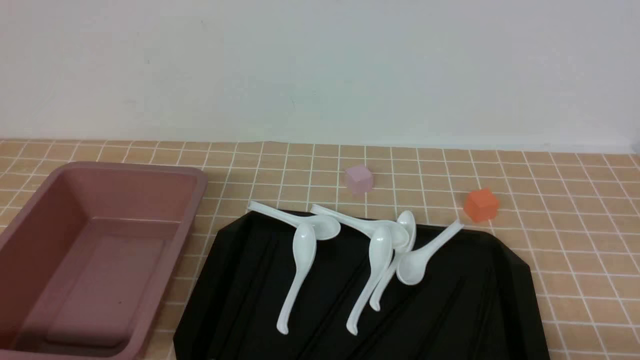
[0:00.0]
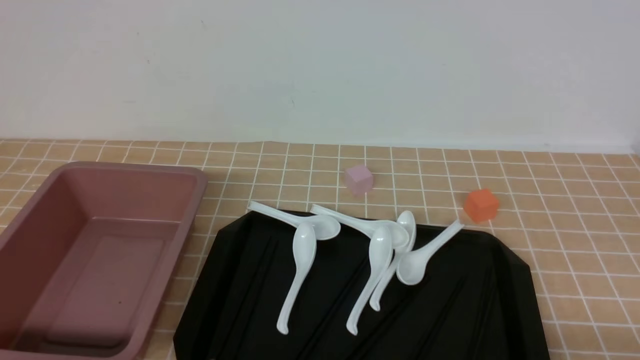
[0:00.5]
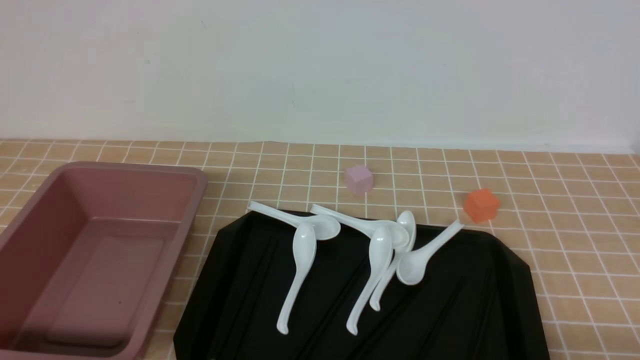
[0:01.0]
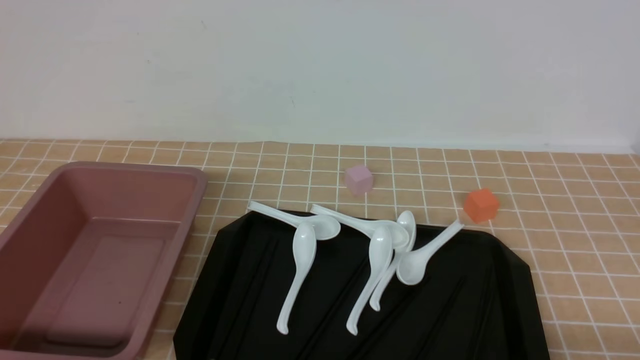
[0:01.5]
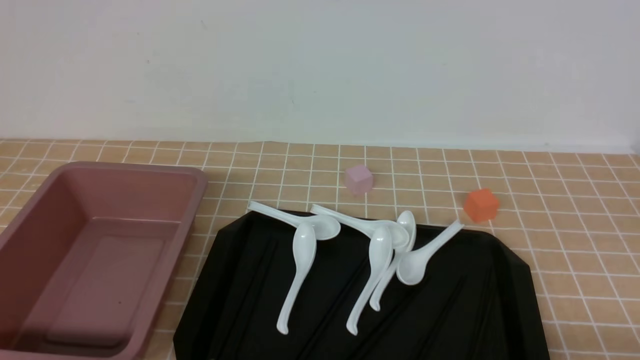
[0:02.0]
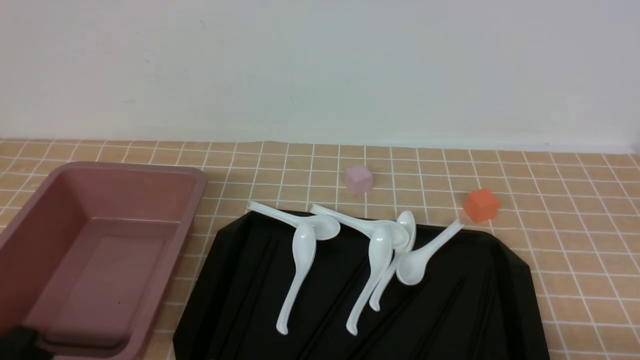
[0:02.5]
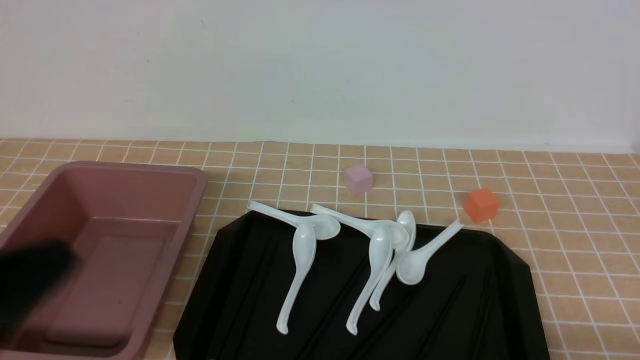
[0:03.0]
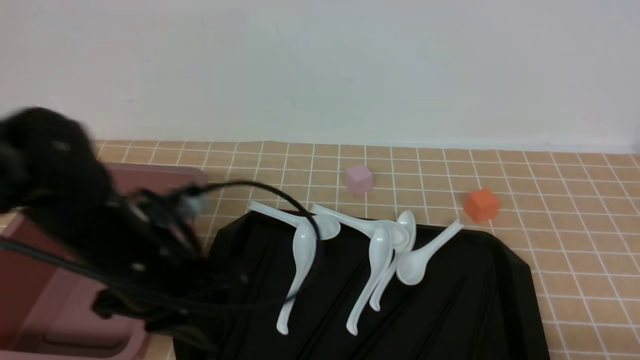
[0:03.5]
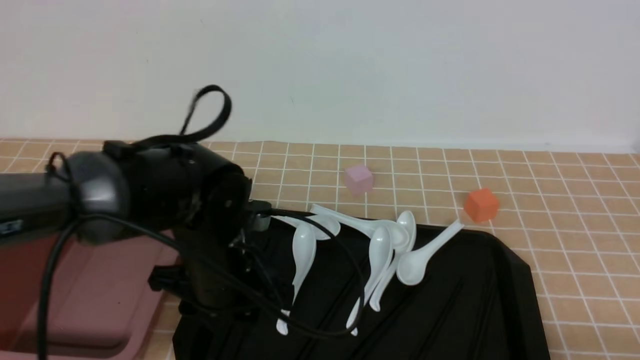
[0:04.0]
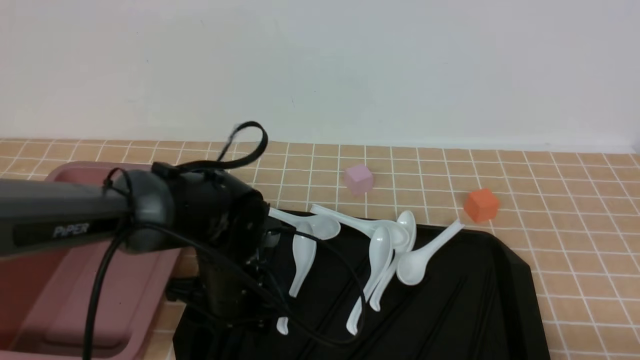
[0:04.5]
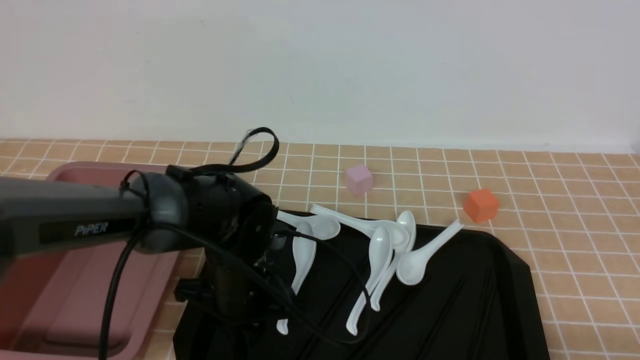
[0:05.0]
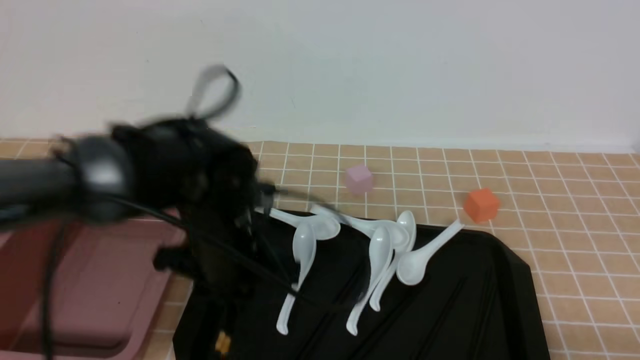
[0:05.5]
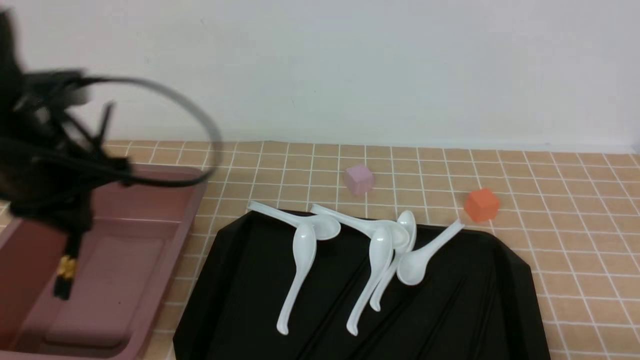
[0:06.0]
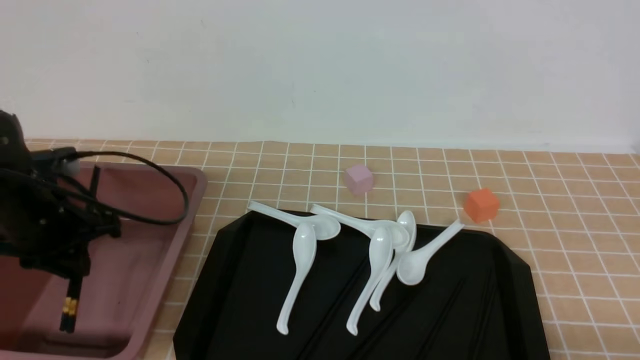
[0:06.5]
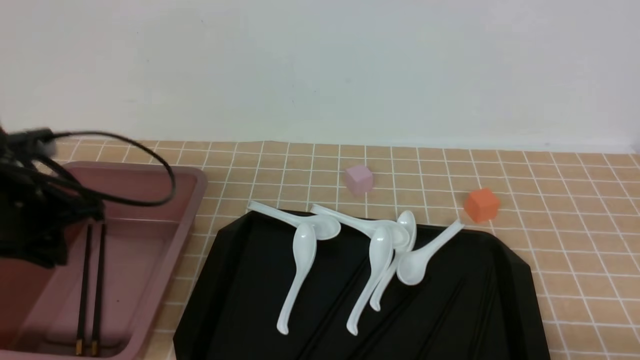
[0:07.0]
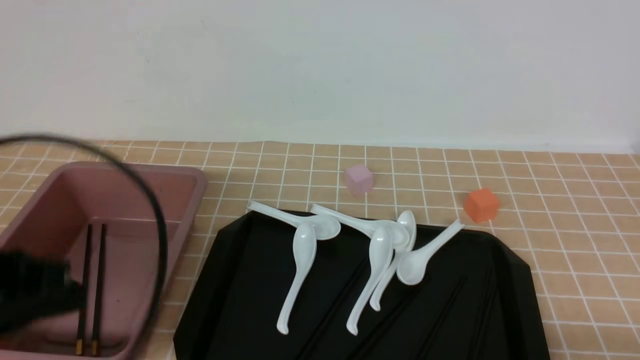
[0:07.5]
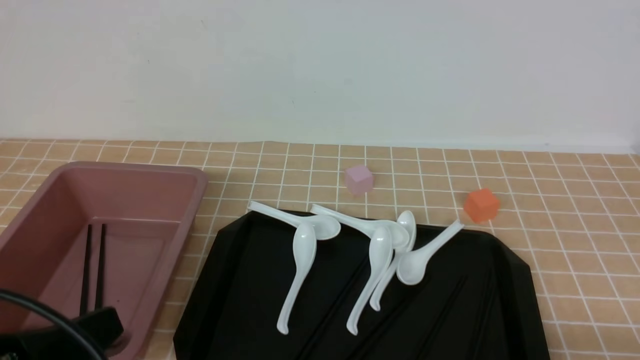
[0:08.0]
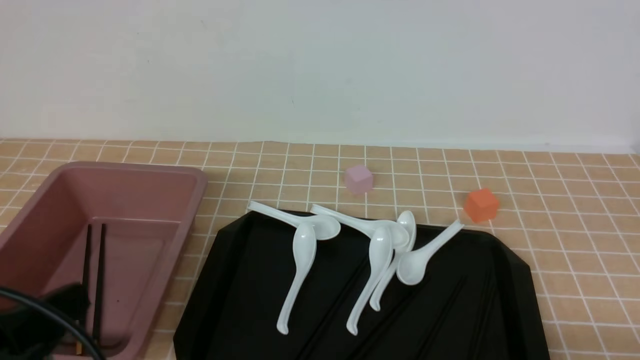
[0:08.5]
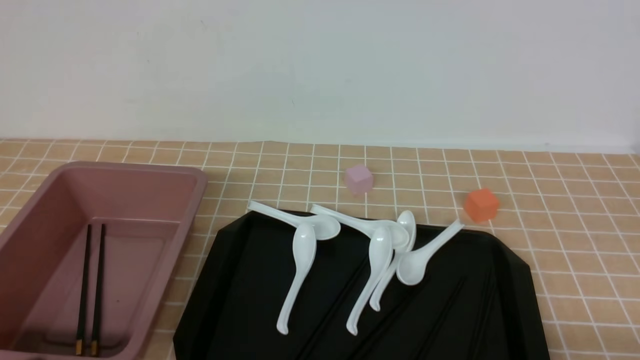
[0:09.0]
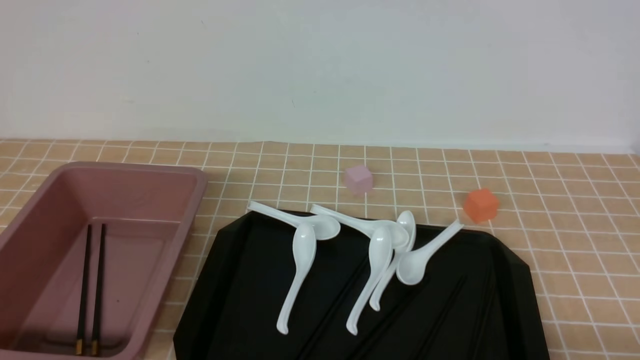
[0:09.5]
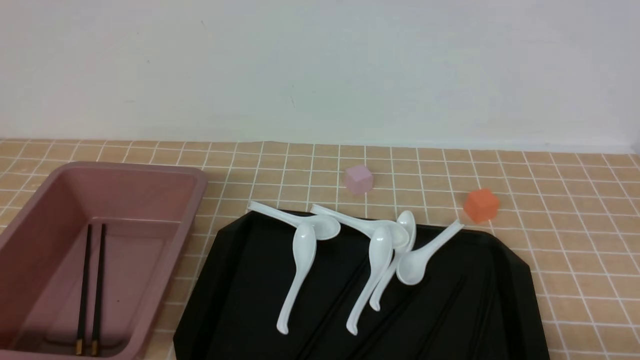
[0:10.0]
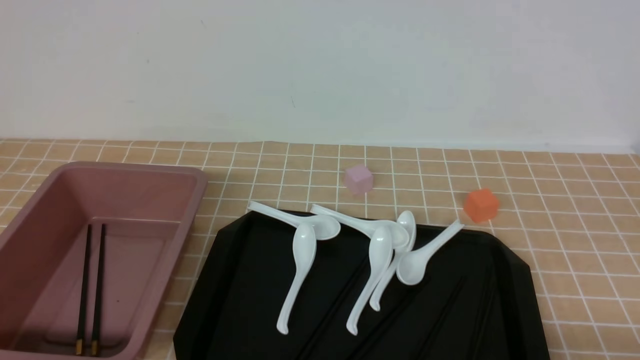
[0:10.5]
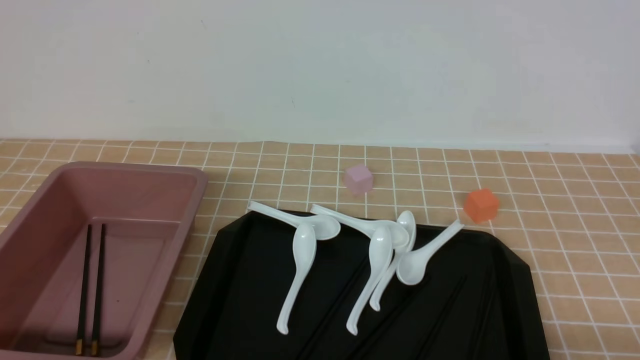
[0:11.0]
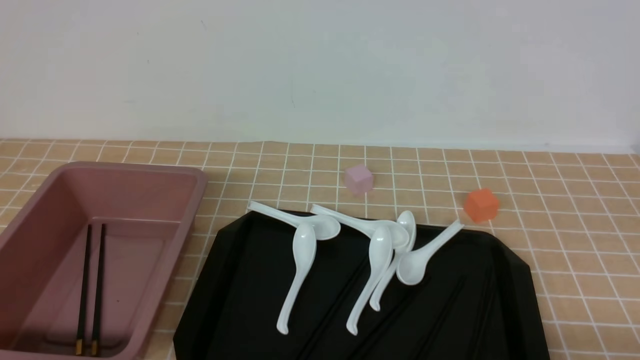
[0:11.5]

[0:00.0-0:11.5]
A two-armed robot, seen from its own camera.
Step, 0:00.0 to 0:05.5: use the left arm to grab a pair of chopsticks.
Step, 0:06.0 to 0:07.0: use the left arm to put the chopsticks into the lunch box.
0:02.0 to 0:04.0: The left gripper heads forward and to the right, covering some 25 cm, and closes, then reopens.
0:04.0 to 0:06.0: The left gripper moves to the left and upward, roughly 15 cm, and closes.
0:06.0 to 0:07.5: The left gripper shifts about 15 cm backward.
0:07.5 to 0:09.5: The left gripper heads downward and backward, covering some 15 cm.
0:09.5 to 0:11.5: Neither gripper changes place.
